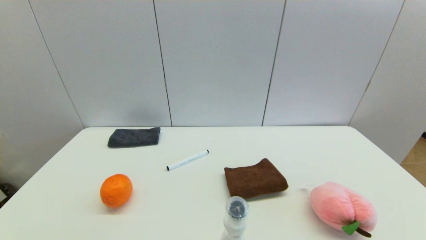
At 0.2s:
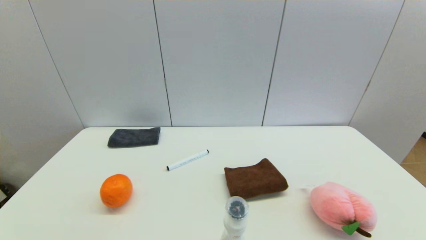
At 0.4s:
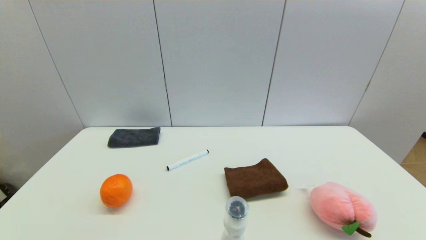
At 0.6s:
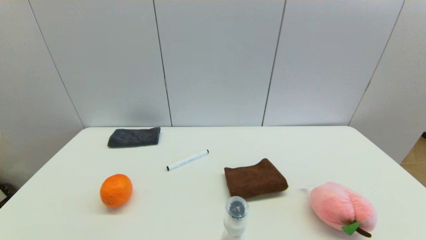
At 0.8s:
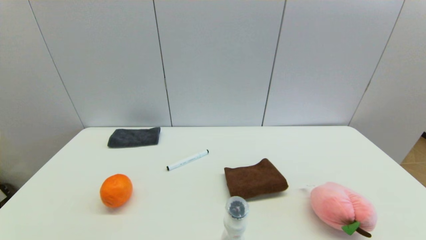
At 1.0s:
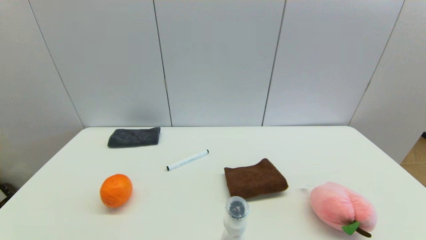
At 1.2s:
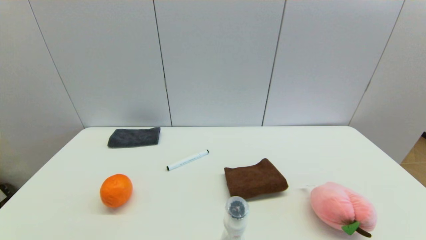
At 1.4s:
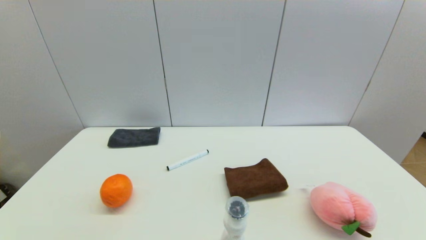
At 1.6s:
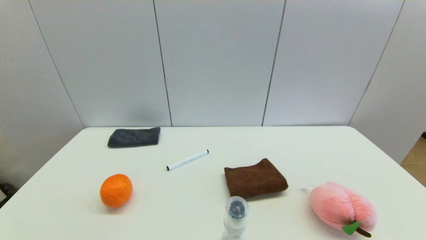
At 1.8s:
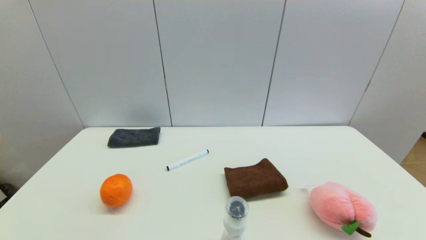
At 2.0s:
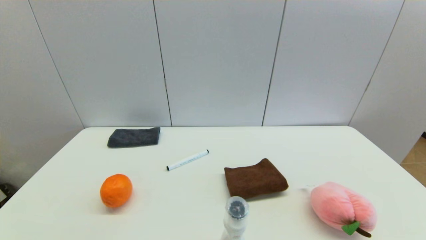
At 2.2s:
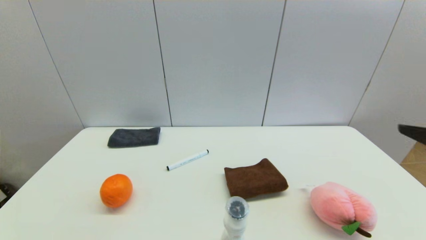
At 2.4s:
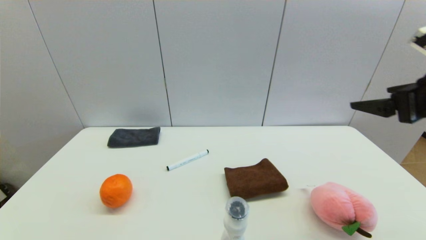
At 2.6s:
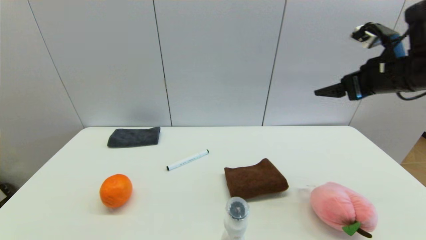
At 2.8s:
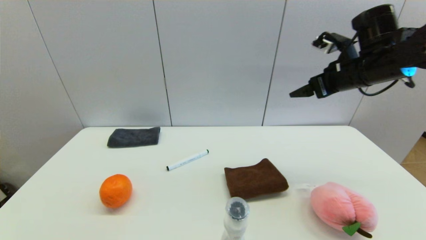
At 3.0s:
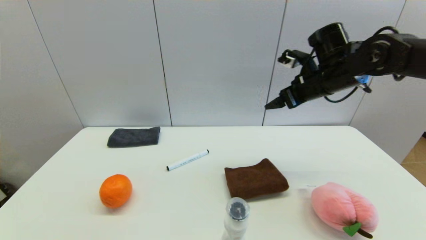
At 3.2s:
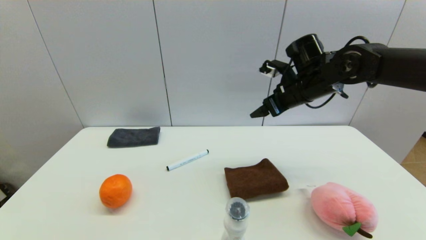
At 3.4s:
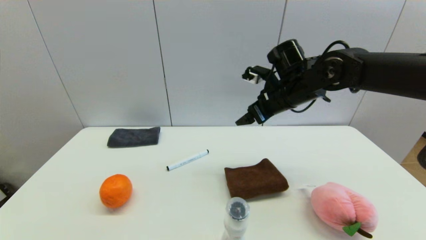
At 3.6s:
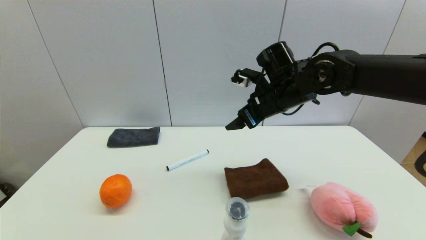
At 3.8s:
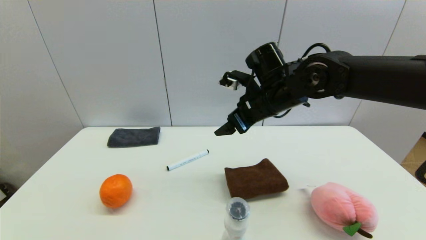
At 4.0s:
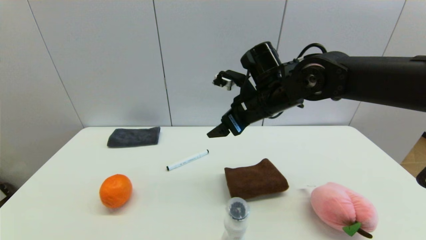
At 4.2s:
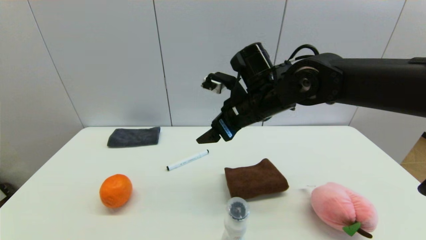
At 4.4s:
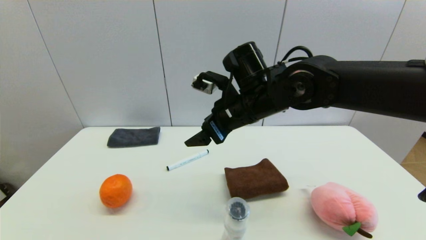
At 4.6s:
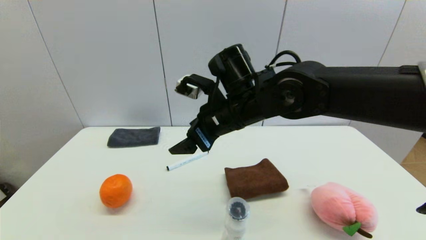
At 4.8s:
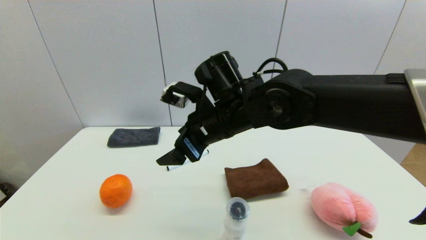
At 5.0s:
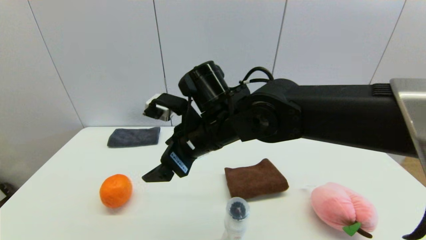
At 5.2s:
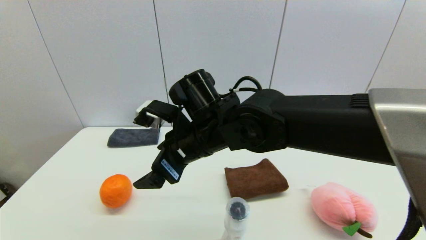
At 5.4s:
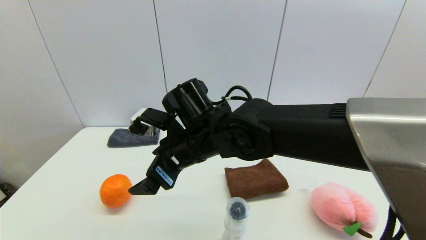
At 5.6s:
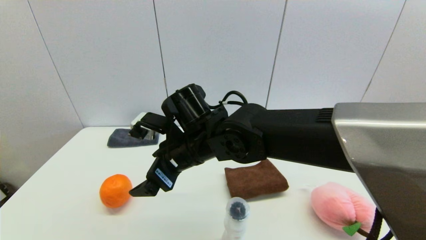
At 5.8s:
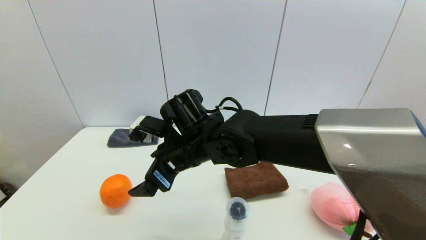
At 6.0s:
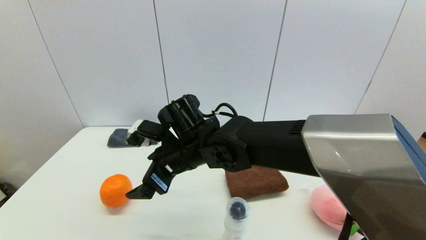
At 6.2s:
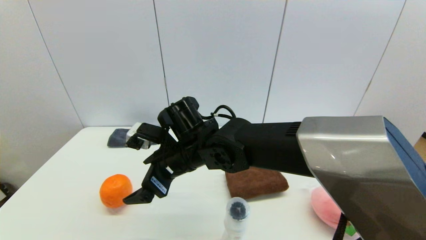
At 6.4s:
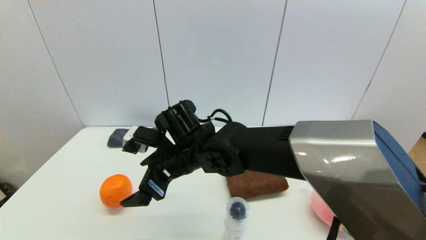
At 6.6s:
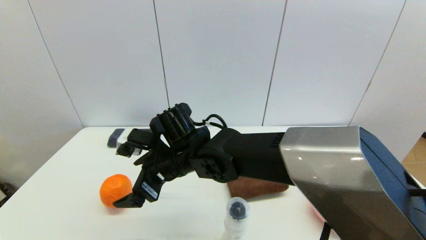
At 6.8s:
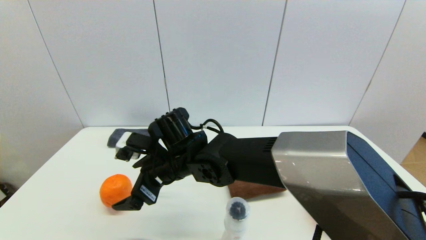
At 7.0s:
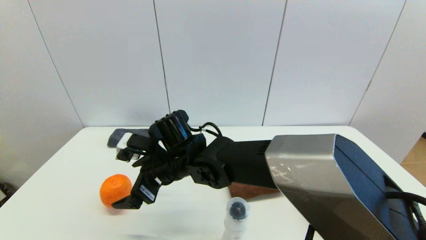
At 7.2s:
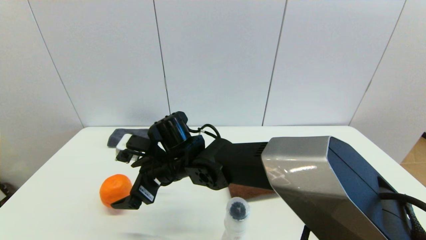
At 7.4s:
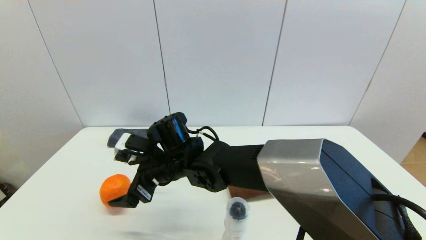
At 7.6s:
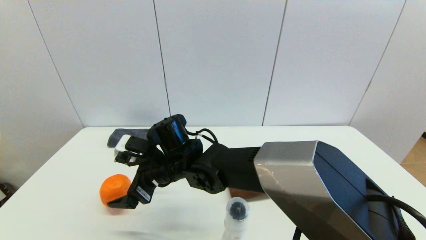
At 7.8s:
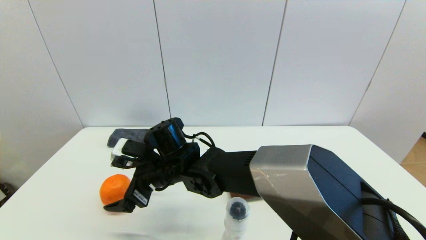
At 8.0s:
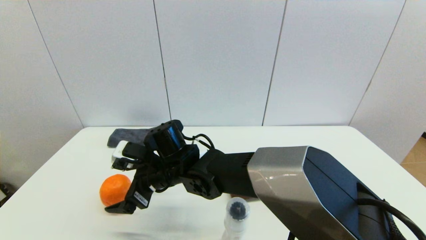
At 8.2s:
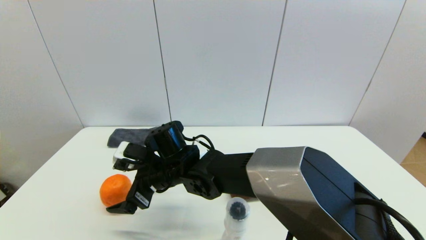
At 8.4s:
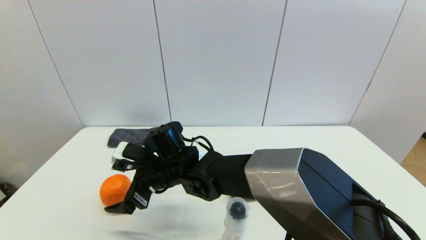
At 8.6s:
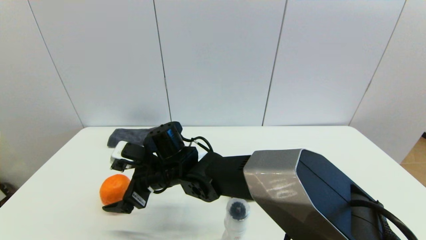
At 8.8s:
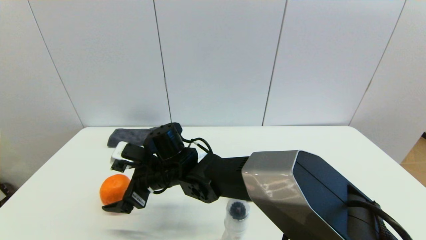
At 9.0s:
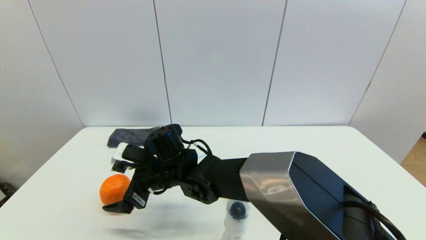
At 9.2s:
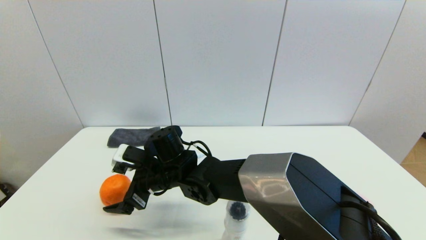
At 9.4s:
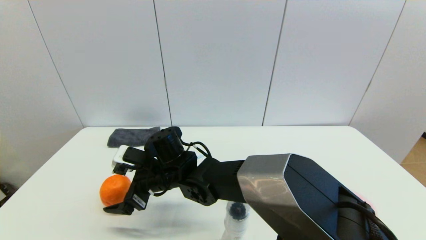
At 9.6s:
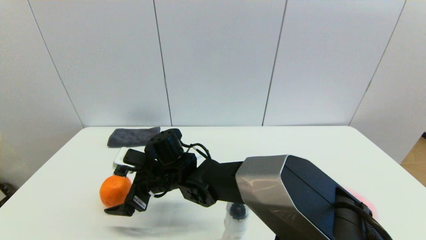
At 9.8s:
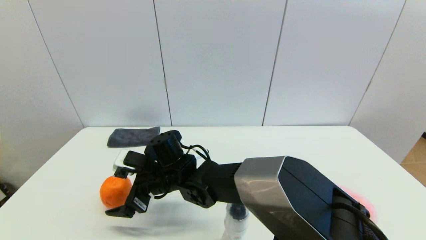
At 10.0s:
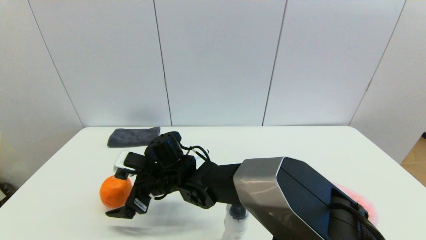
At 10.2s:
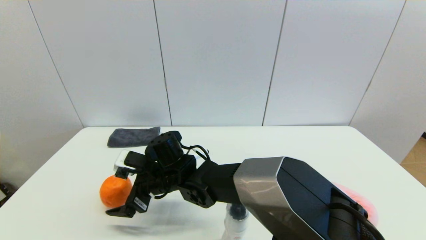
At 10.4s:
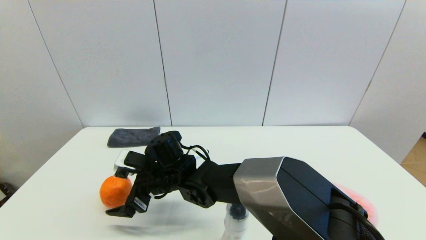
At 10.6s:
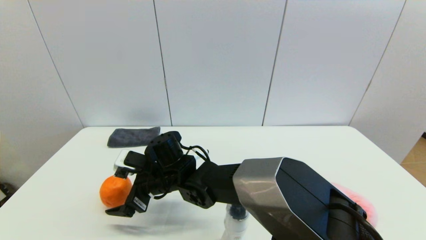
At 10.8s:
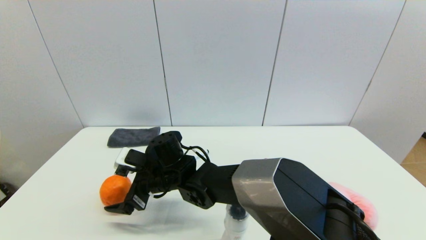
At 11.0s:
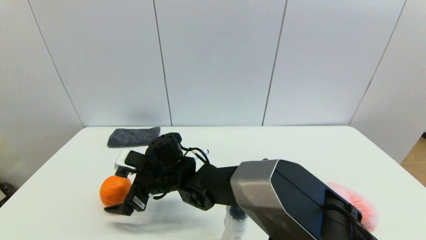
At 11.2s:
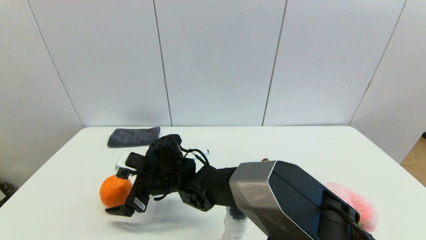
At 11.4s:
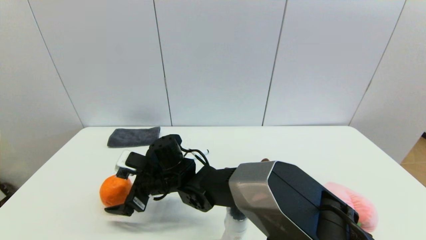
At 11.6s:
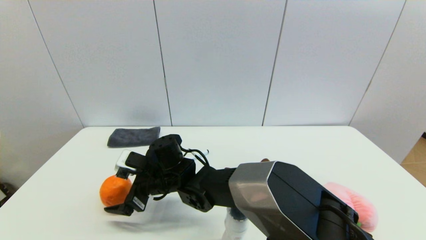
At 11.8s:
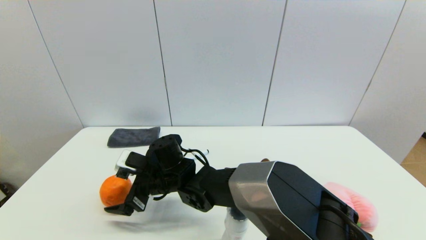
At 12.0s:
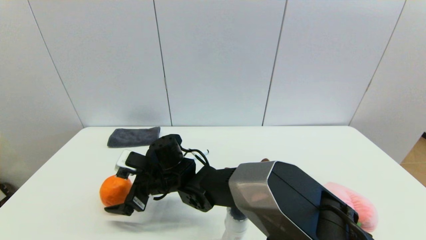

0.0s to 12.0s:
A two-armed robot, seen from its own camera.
1.6s to 3.0s: The right gripper moves forward, some 40 cm.
3.0s to 4.4s: The right gripper moves to the left and backward, roughly 20 cm.
4.4s to 6.0s: The right gripper goes approximately 15 cm to the left and downward.
6.0s to 7.6s: The right gripper moves roughly 5 cm.
7.6s to 10.4s: The grippers move only a little.
10.4s to 12.0s: Both grippers stay about where they are.

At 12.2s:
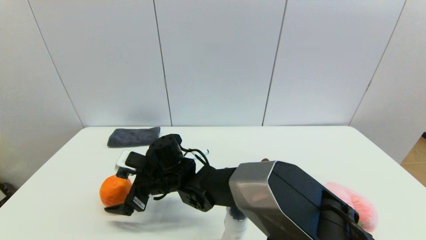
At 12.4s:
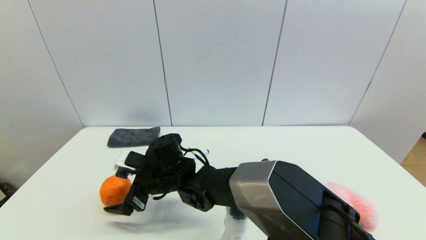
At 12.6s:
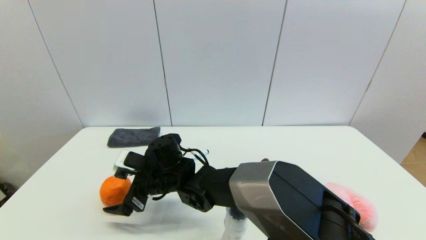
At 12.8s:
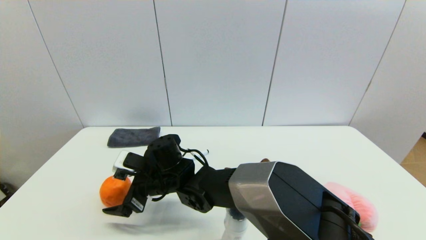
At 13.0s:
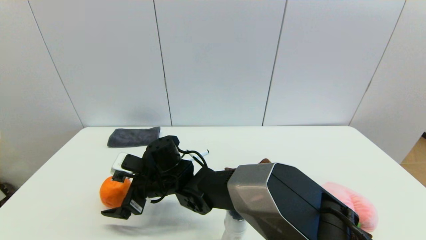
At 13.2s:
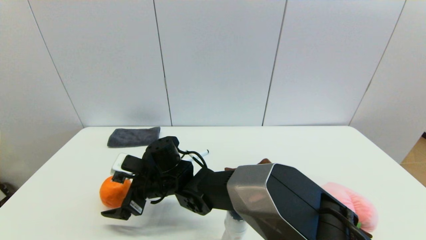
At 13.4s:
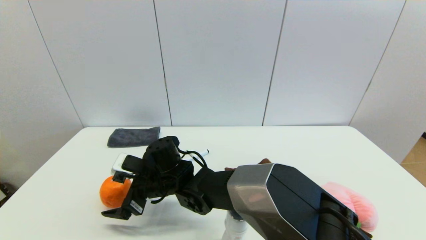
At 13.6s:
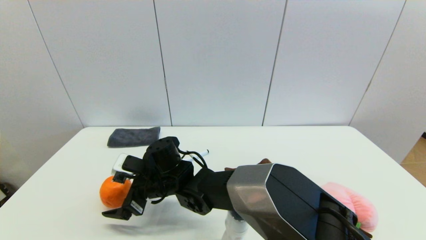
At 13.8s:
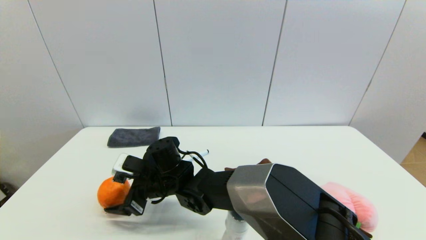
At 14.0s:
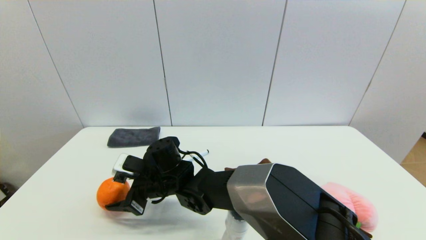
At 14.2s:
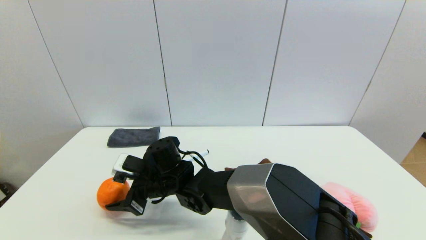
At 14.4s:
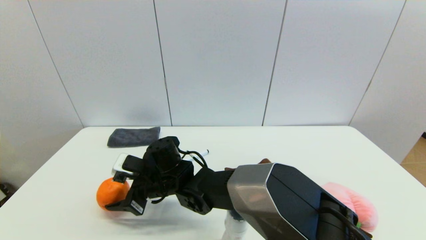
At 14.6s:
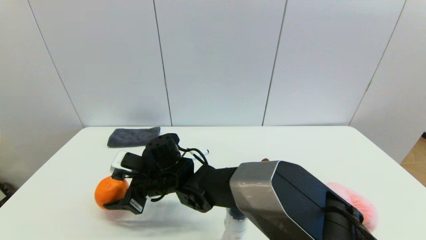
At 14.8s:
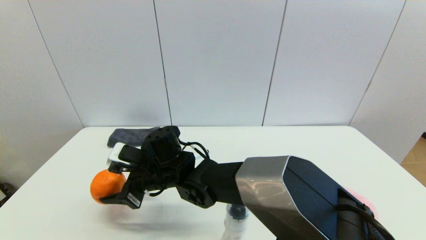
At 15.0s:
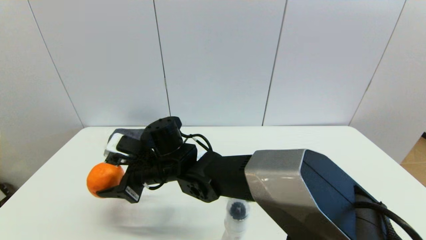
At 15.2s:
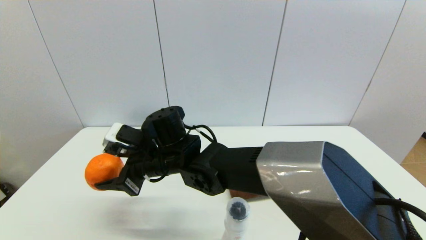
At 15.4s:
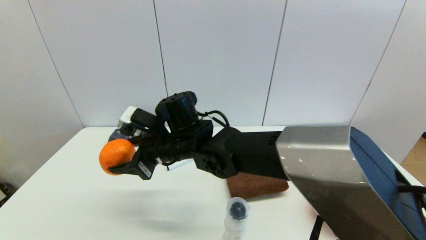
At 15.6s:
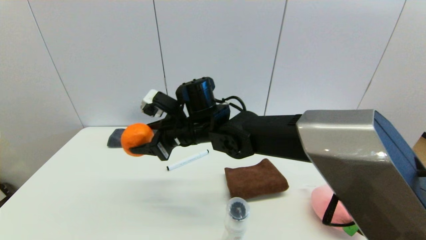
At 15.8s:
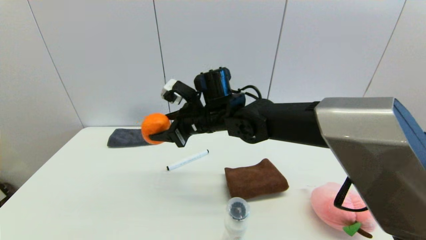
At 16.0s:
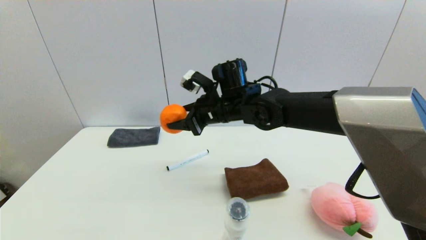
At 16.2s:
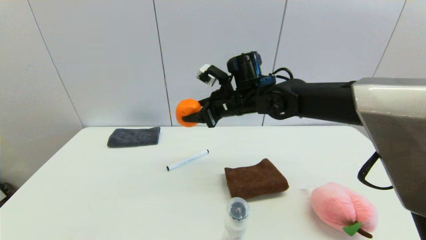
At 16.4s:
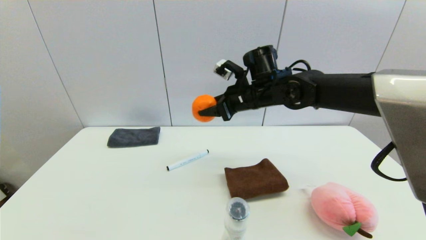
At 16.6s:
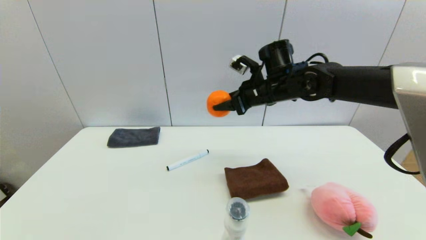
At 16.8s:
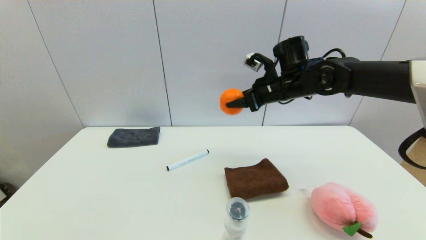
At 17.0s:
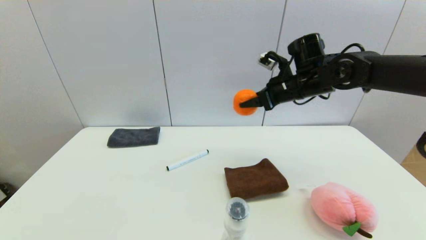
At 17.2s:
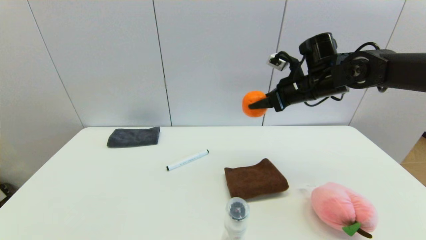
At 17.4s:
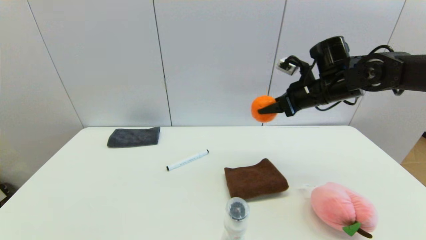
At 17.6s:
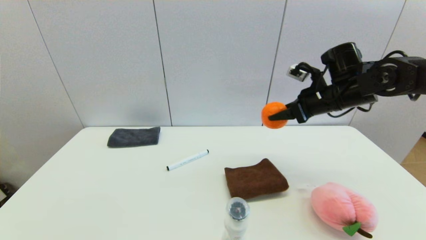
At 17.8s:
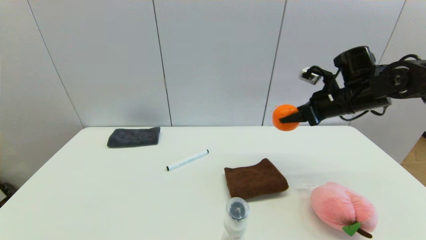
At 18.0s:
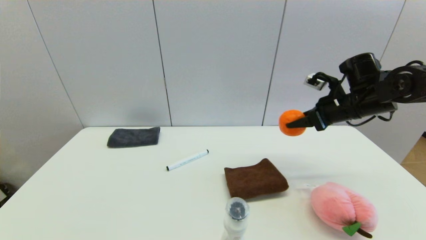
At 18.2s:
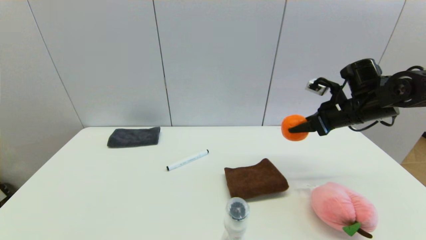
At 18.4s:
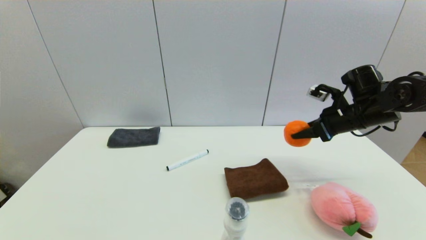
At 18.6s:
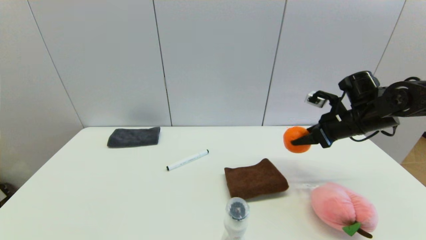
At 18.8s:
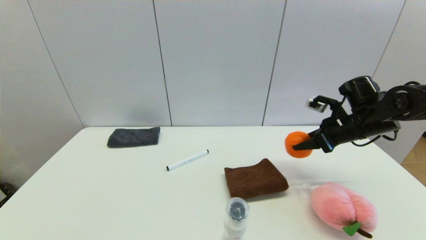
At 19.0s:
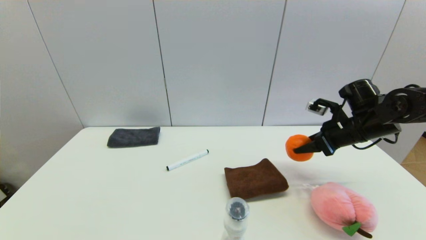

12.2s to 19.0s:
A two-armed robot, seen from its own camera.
Step, 12.2s to 14.4s: Grasp the orange with right gripper.
12.2s to 13.6s: Neither gripper changes place.
13.6s to 15.0s: The right gripper shifts some 5 cm upward, and closes.
15.0s to 16.2s: The right gripper heads to the right, forward and upward, covering roughly 20 cm.
16.2s to 17.6s: The right gripper is displaced to the right by some 20 cm.
17.6s to 19.0s: The right gripper moves downward and to the right, about 10 cm.
